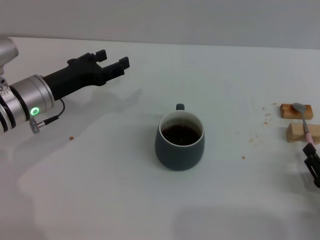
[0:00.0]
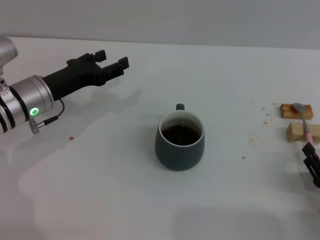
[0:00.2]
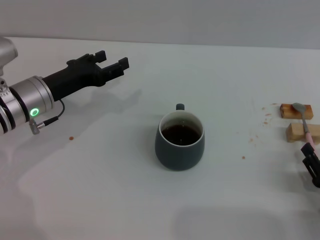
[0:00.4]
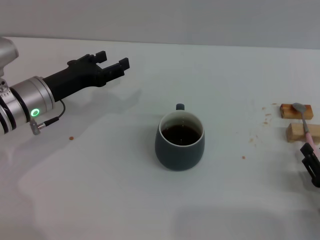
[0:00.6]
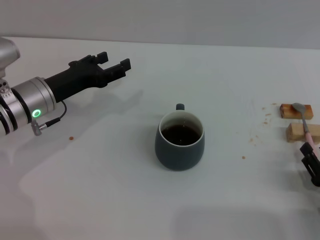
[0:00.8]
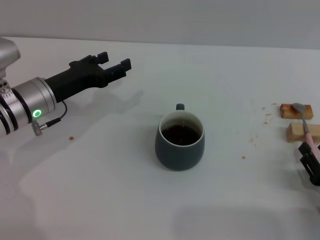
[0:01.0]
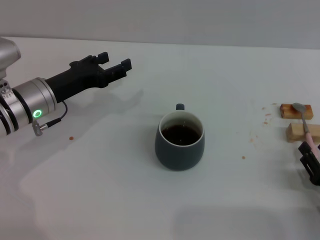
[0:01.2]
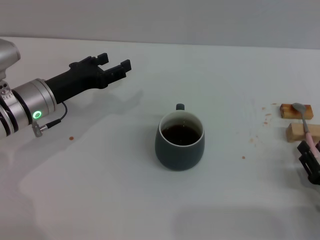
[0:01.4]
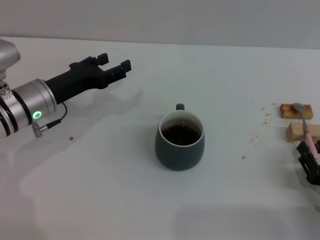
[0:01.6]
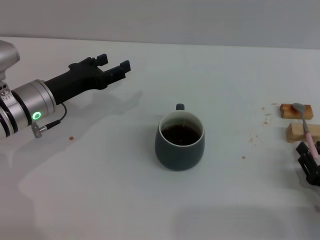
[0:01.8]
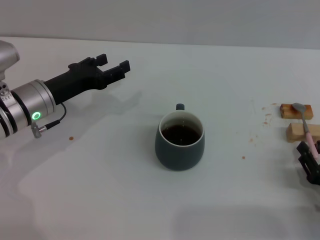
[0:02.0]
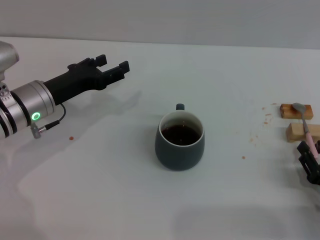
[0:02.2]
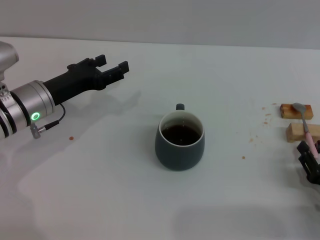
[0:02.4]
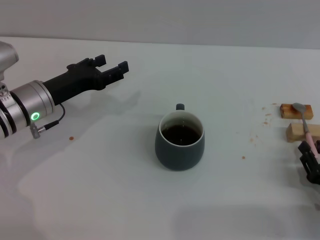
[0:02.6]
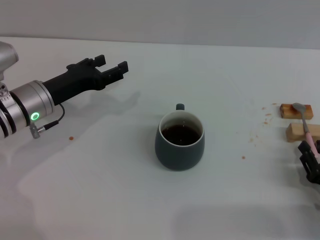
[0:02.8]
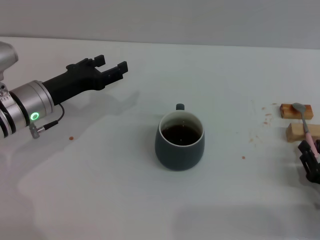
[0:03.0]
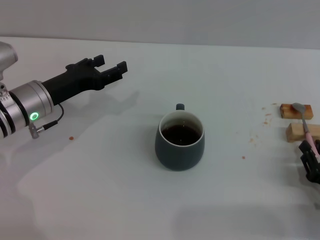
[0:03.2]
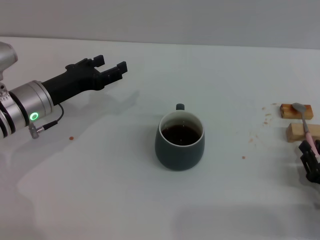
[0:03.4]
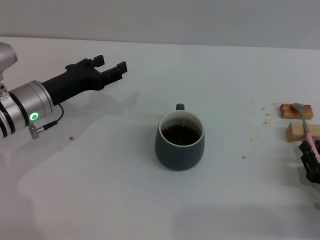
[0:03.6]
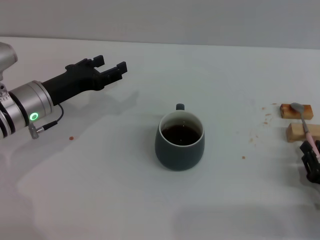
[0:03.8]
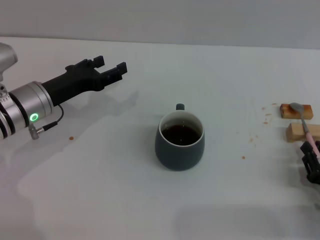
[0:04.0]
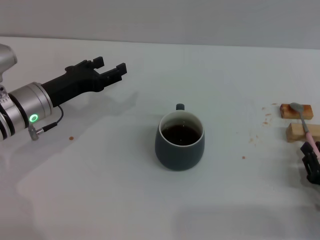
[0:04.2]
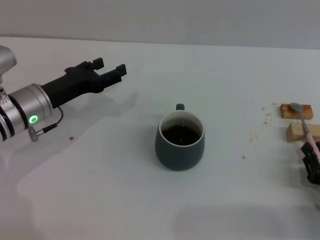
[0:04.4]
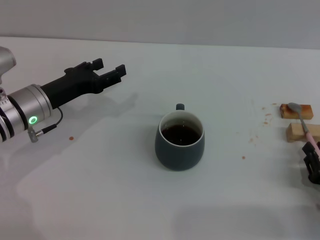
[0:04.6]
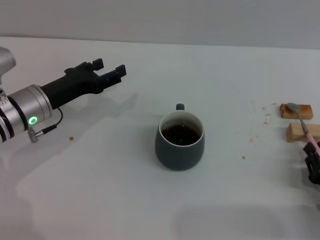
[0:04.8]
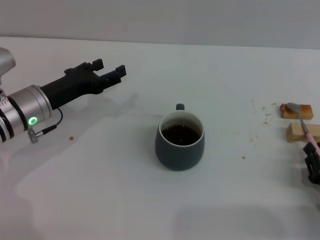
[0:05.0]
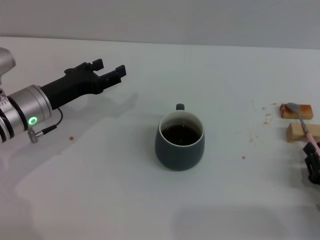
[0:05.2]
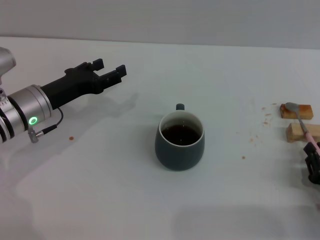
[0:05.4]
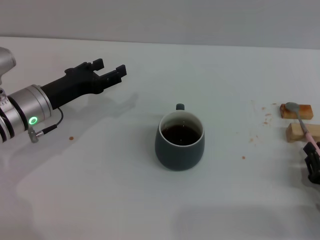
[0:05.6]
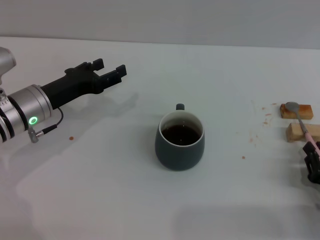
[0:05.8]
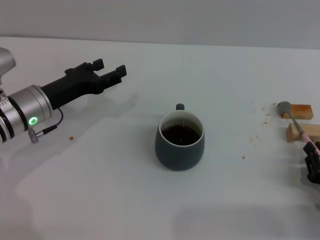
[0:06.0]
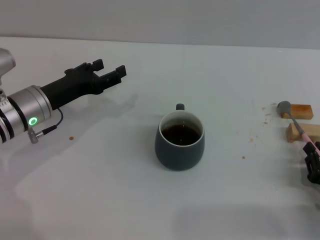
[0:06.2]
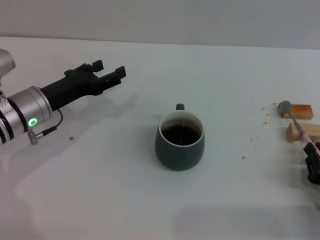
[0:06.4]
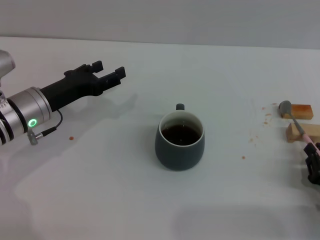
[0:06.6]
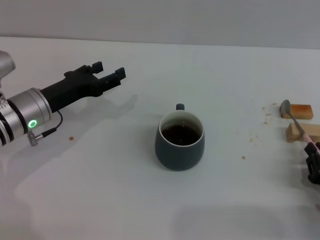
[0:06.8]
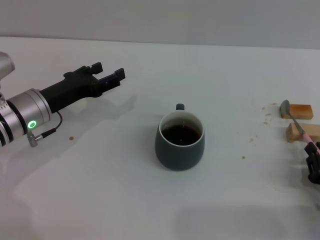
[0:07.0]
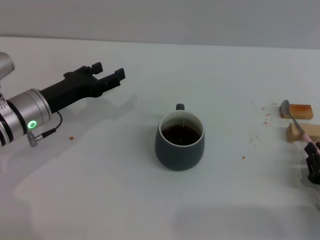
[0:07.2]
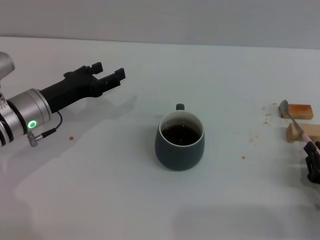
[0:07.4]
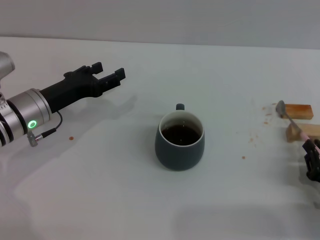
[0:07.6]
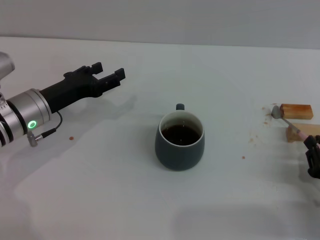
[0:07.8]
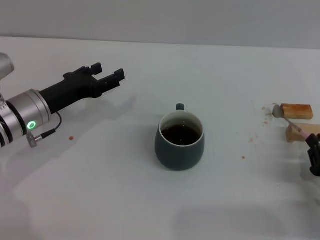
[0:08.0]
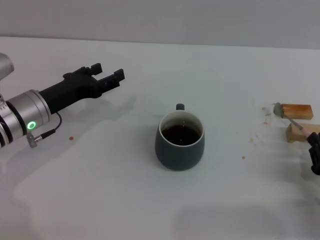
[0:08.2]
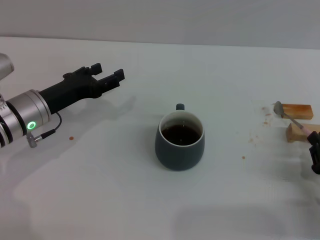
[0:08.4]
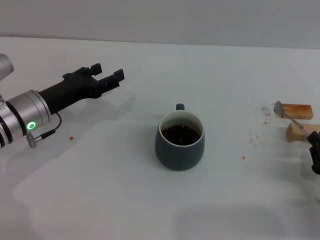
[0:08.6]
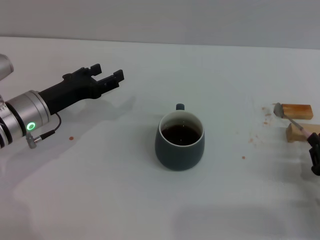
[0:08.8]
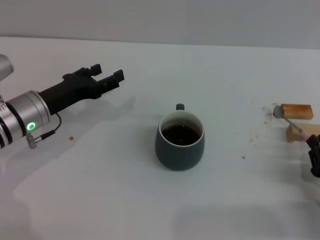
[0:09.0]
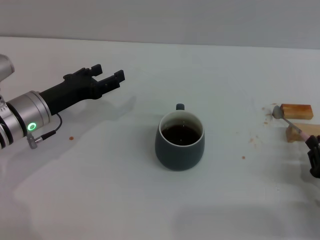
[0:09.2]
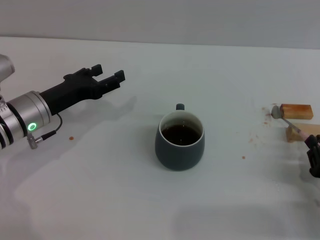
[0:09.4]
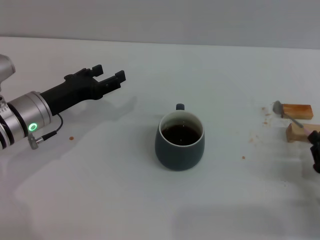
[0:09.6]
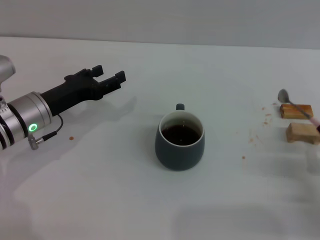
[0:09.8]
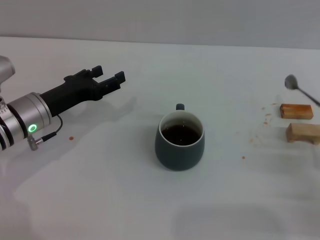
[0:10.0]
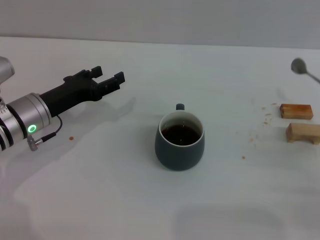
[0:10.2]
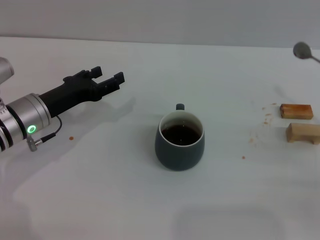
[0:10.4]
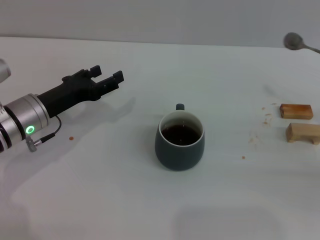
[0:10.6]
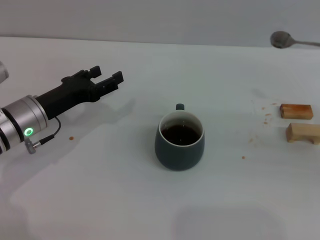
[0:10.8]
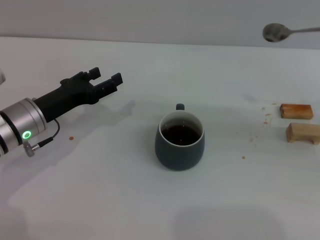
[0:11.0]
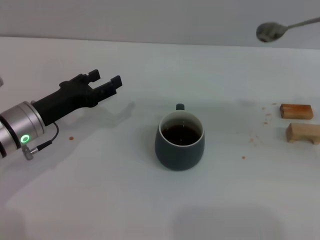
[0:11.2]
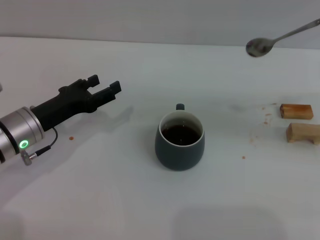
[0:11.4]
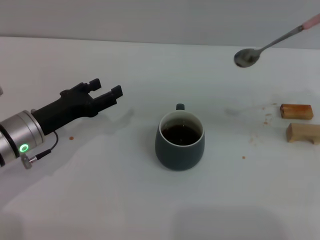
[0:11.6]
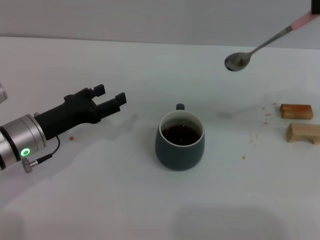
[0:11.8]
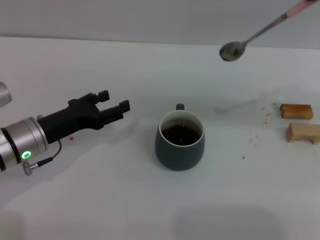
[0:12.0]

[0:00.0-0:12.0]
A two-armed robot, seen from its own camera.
Task of the whole recording: Move the grey cup to the center, lift the pink spoon, stir it three times in the cup, and put the spoon into the cup.
0:00.0 to 0:01.6: Neither gripper changes place.
0:03.0 to 0:07.6: Neither gripper changes place.
0:07.6 to 0:09.0: Both grippers stay put.
0:09.0 to 0:10.4: The right gripper shifts about 10 cm upward and to the right.
0:10.4 to 0:12.0: The right gripper shifts approximately 30 cm upward and forward.

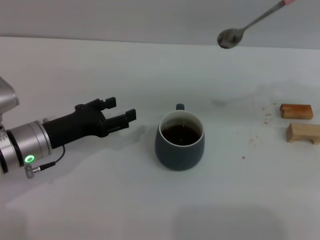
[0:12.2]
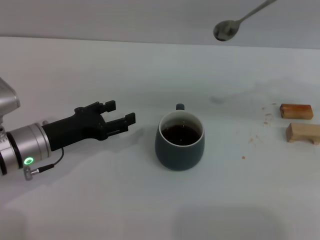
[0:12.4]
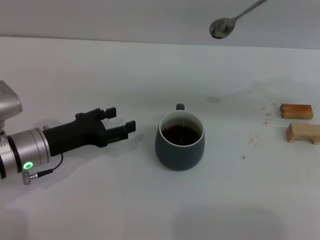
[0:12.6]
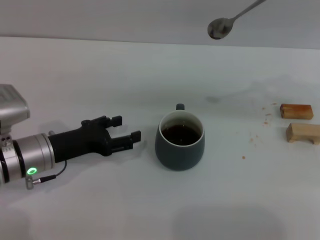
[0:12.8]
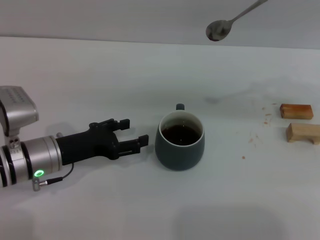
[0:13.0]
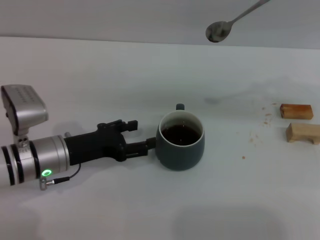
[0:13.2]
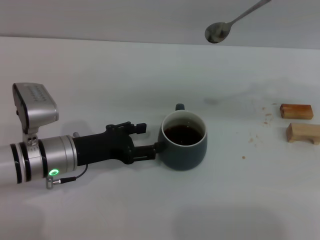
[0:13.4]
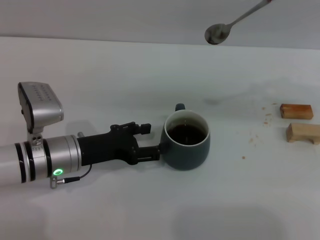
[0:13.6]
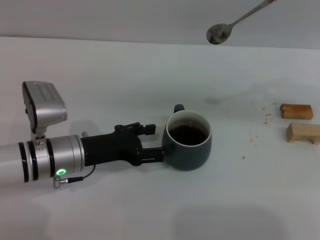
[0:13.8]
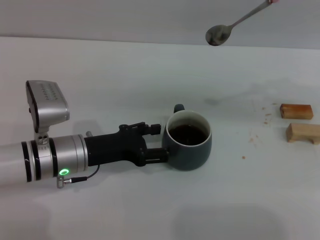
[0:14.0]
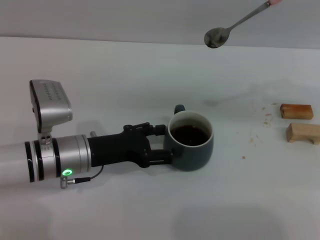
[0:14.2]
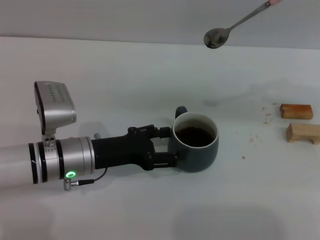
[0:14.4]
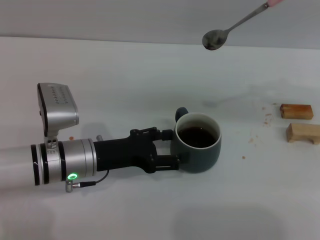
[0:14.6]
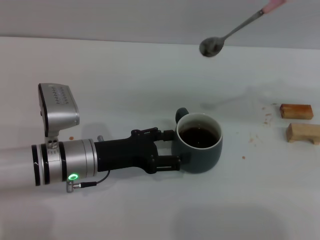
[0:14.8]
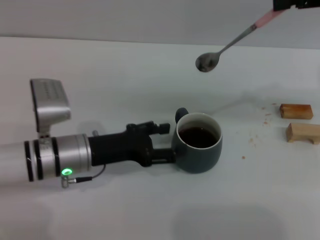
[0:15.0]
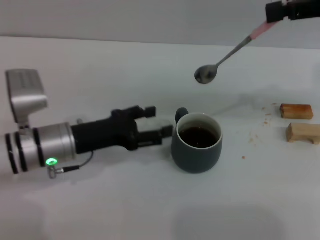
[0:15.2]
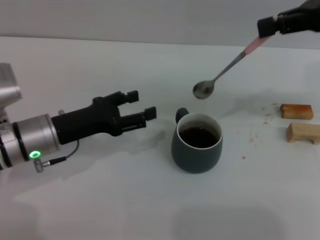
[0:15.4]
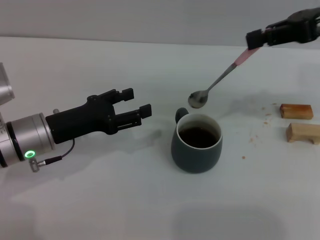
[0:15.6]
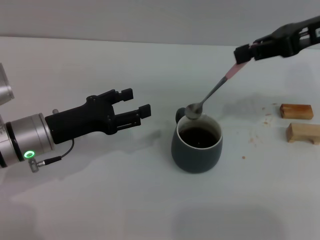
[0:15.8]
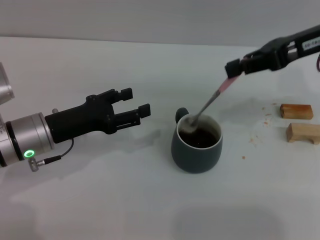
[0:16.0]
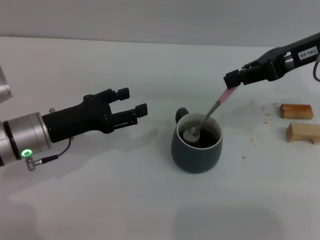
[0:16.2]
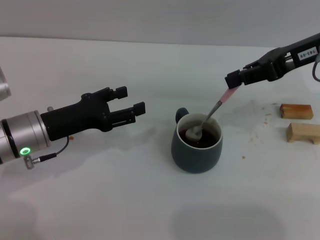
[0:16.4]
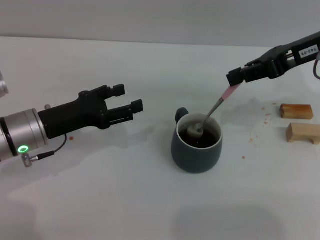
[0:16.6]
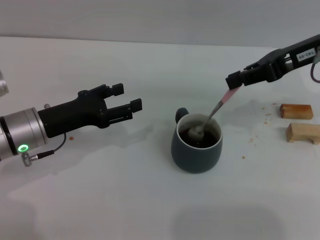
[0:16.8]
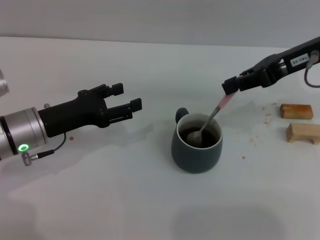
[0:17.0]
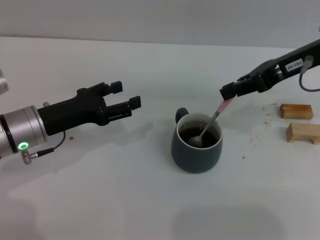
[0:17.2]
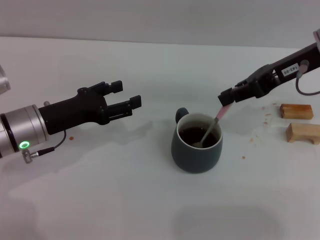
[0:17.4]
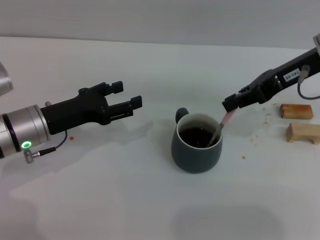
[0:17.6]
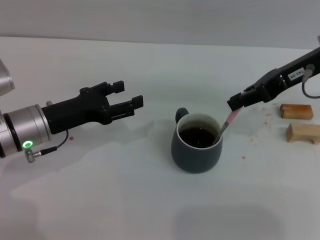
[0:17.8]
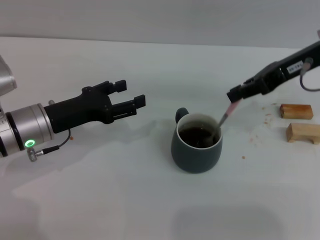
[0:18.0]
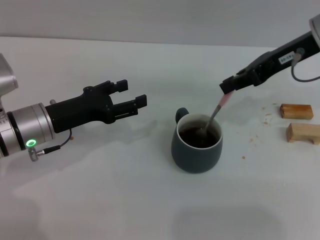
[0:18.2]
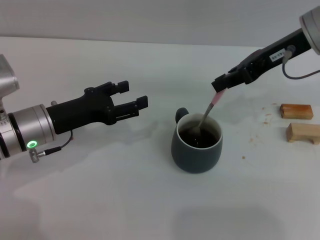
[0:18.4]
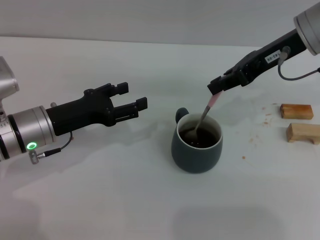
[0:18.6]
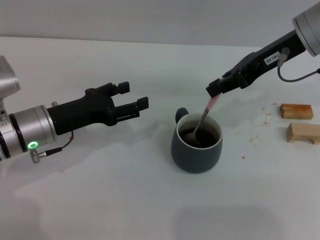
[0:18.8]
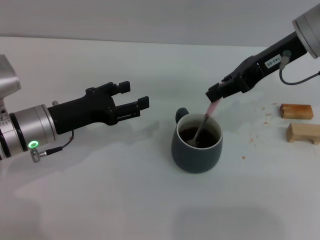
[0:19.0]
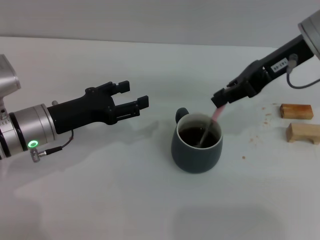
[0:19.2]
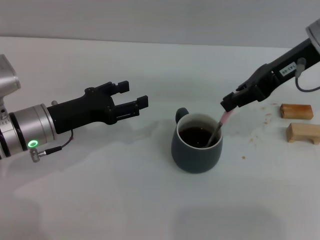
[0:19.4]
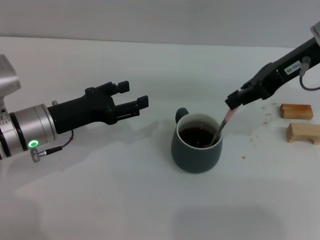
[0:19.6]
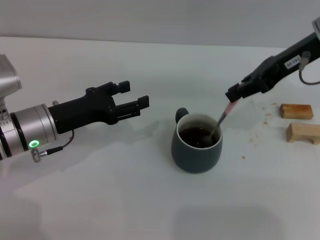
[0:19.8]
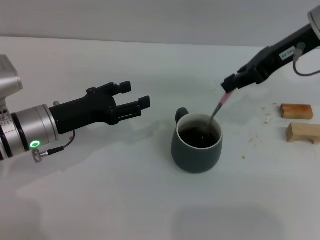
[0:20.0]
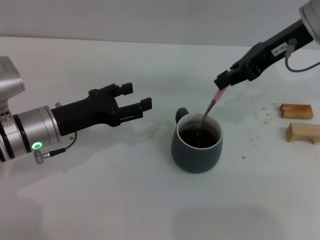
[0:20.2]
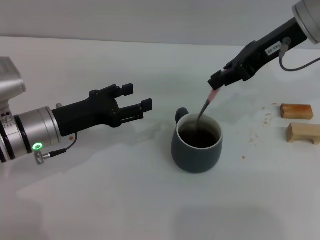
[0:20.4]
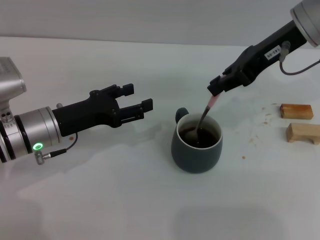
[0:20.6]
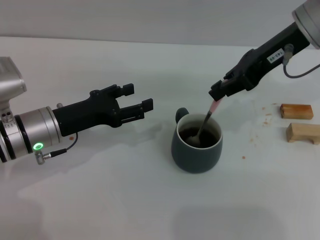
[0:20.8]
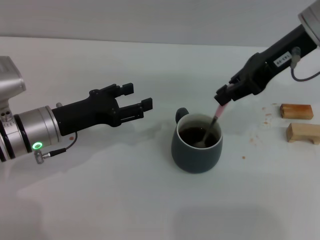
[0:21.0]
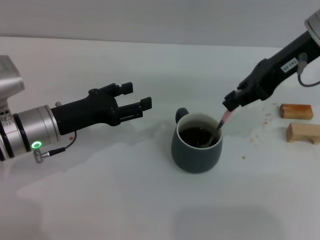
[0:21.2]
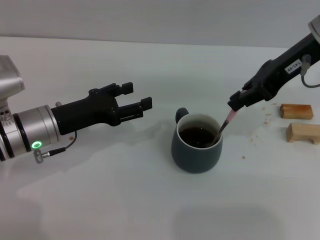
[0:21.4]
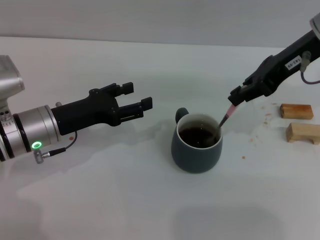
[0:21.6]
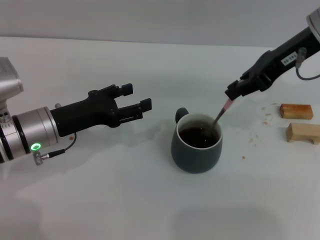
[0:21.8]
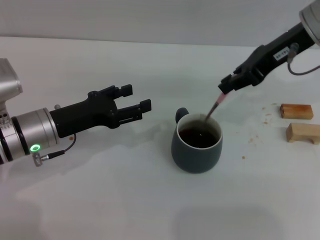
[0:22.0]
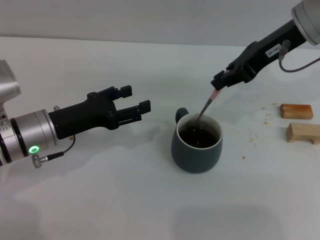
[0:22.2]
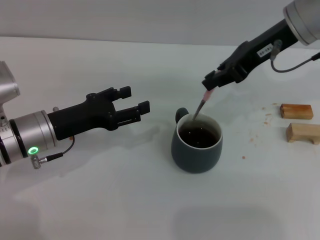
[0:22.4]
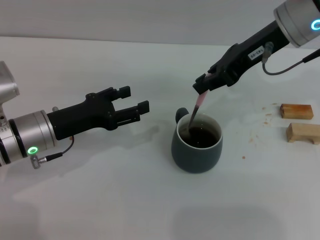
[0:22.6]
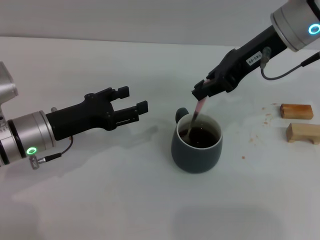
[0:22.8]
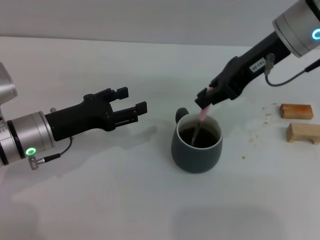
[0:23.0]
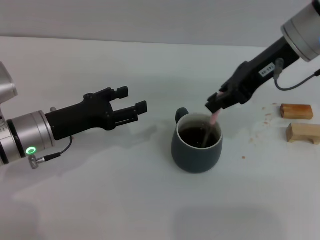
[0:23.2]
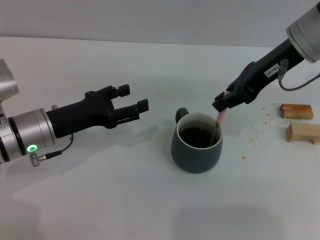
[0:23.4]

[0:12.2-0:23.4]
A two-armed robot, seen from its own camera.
Task of the whole recording: Move the grey cup to the center, lift the pink spoon, stir it three times in the cup, and put the spoon into the cup.
Step, 0:12.2 to 0:15.2: Move the cup with coffee to the center of view with the left gripper.
0:12.2 to 0:13.8: There are only small adjustments of the grippers.
0:15.4 to 0:17.0: The right gripper heads downward, covering approximately 5 cm.
0:17.0 to 0:21.8: The grippers stay close to where they were, moving slightly.
0:21.8 to 0:23.4: The grippers stay close to where they were, moving slightly.
